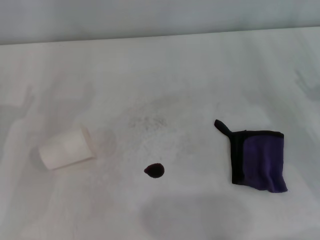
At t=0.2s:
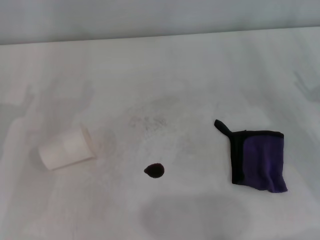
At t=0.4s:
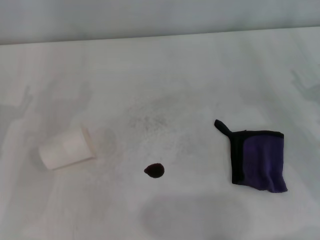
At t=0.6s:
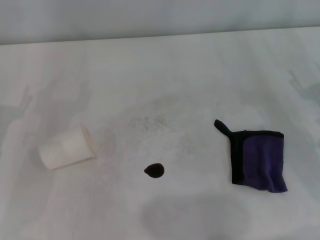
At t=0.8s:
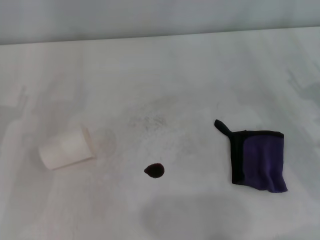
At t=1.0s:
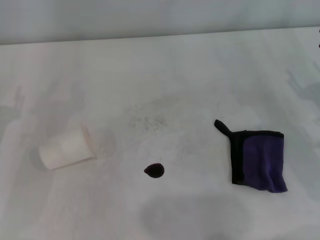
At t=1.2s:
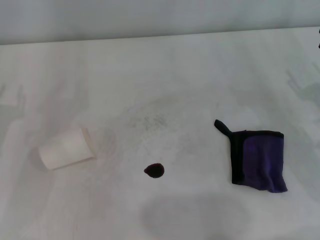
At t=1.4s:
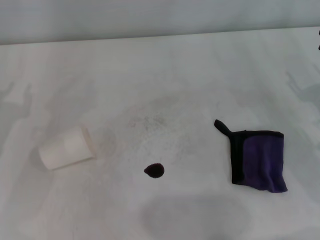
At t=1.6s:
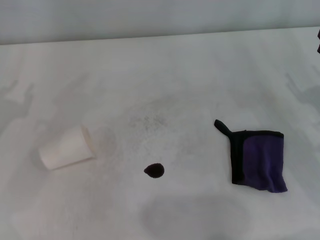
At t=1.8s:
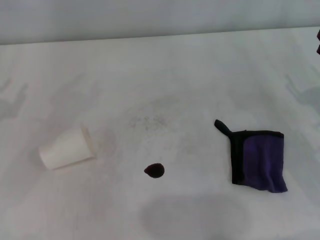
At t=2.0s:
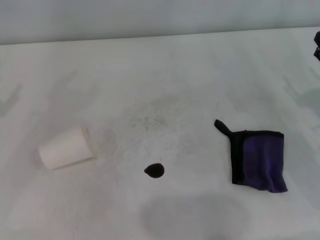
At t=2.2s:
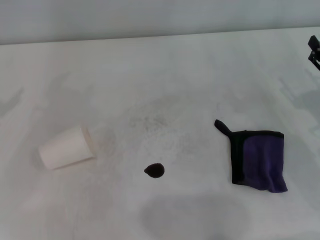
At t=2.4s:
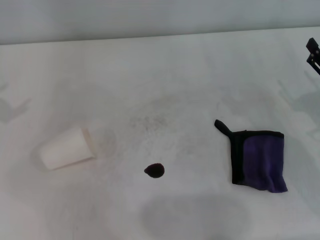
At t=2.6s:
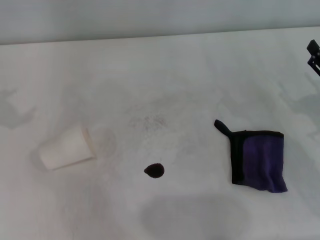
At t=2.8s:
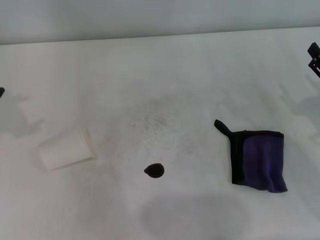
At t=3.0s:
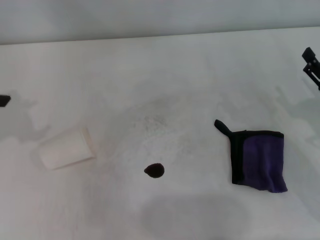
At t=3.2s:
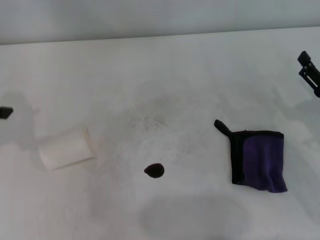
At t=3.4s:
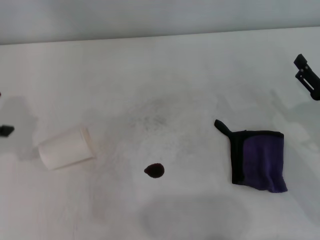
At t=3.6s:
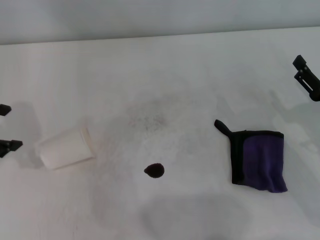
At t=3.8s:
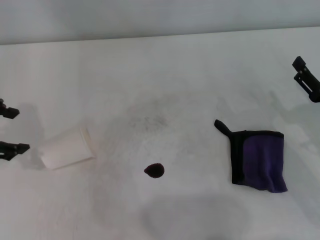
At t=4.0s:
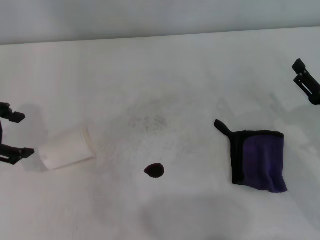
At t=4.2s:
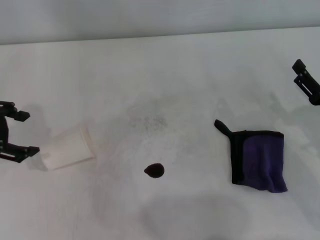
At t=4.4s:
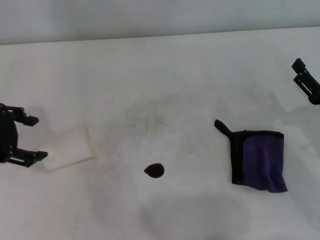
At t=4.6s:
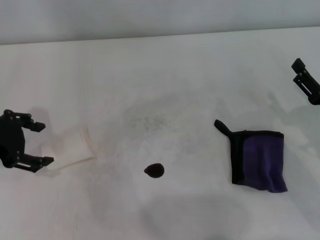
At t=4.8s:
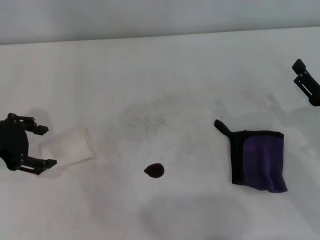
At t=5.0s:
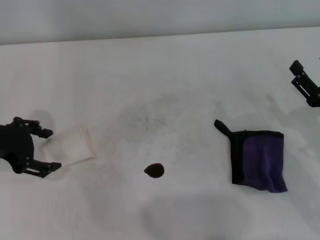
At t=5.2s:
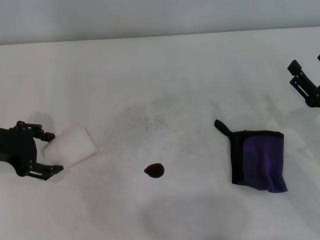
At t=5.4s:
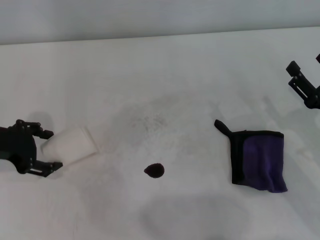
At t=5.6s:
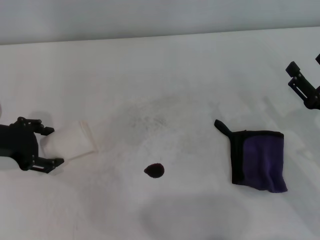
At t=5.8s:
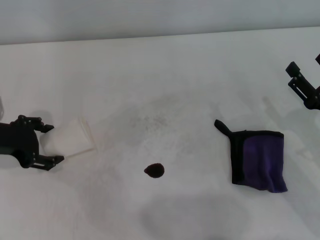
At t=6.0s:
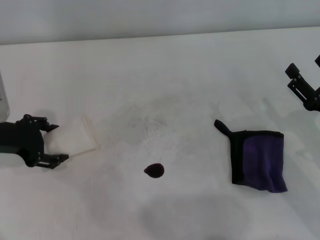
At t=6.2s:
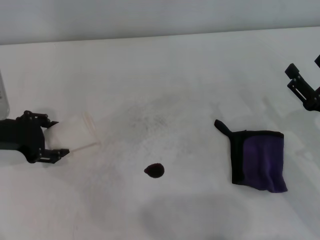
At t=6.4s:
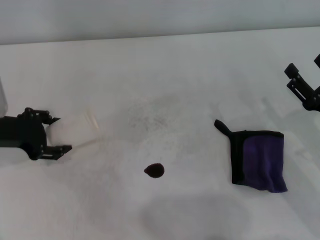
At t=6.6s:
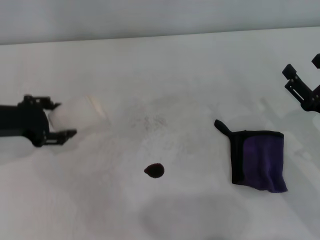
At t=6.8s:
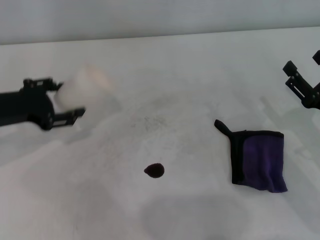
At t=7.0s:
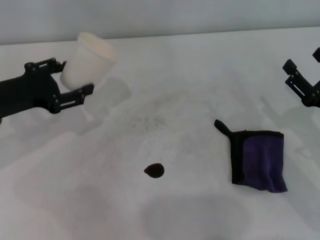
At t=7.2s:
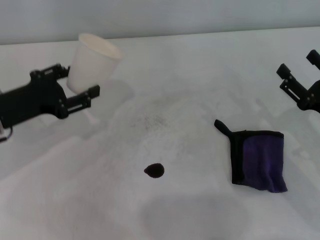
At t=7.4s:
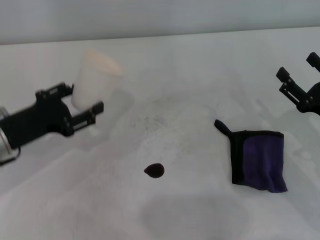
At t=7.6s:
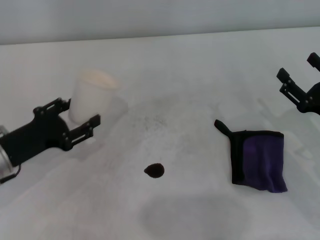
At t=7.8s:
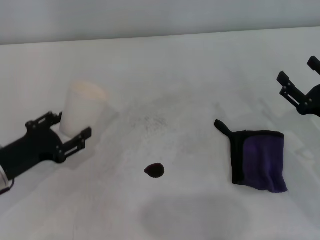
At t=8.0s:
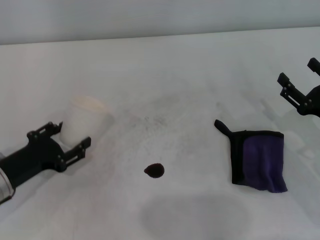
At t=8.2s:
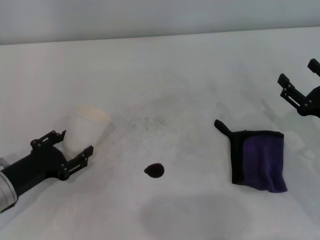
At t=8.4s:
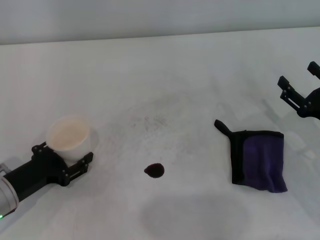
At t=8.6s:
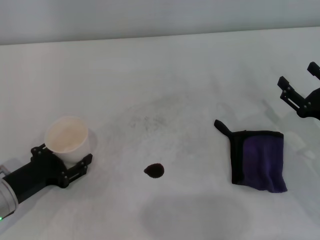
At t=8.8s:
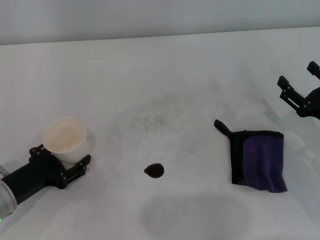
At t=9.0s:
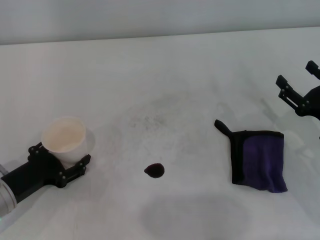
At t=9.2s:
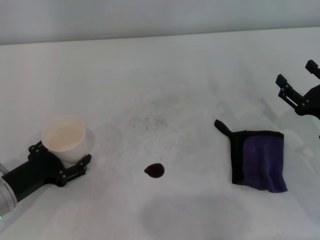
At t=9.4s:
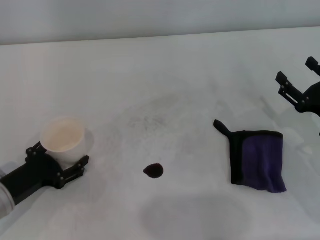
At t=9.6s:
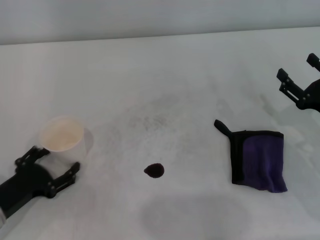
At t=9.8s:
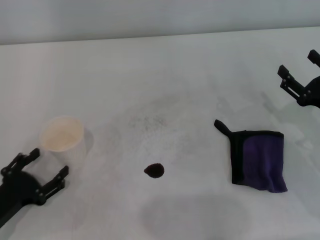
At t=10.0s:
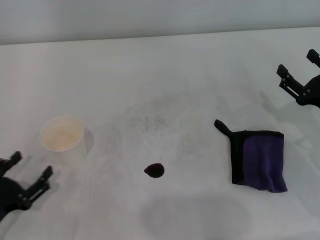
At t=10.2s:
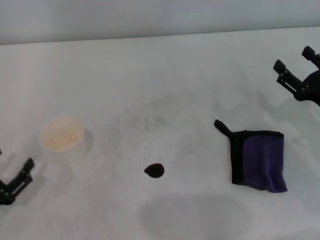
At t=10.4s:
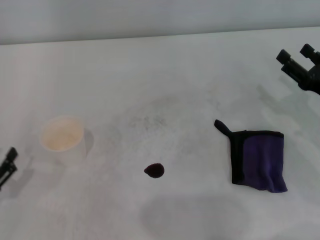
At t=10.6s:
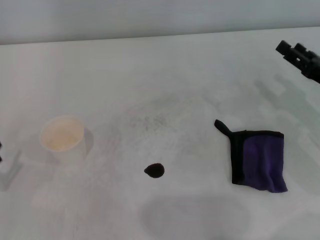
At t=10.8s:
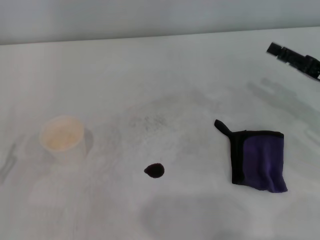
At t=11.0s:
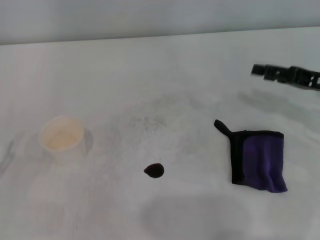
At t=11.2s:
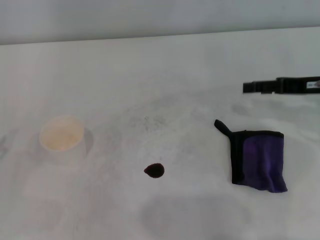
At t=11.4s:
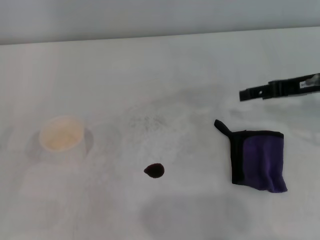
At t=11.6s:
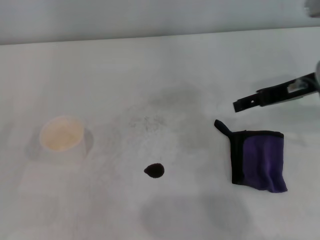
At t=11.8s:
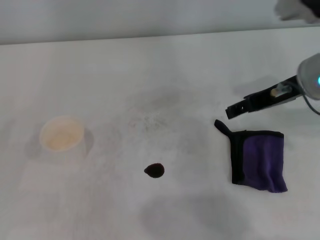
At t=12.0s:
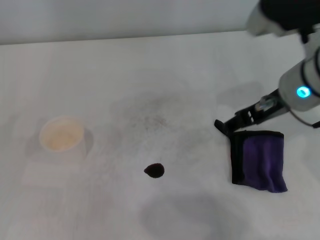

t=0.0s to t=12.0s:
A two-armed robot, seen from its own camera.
Step, t=0.0s to t=6.0s: Grasp the paper cup with the left gripper.
Step, t=6.2s to t=9.2s: Stand the paper cup upright with the left gripper.
t=3.0s to t=4.4s: The left gripper travels downward by roughly 10 cm.
t=4.4s to t=6.0s: The left gripper moves downward, about 5 cm.
t=6.0s to t=7.6s: The left gripper goes about 5 cm downward and backward.
t=7.6s to t=9.0s: The left gripper travels downward by roughly 5 cm.
t=9.0s to t=10.4s: The left gripper travels backward and to the left by roughly 10 cm.
t=10.4s to t=12.0s: The left gripper changes place by about 10 cm. Meanwhile the right gripper goes some 20 cm to the left and upward.

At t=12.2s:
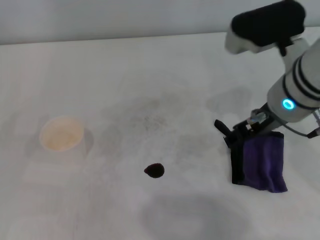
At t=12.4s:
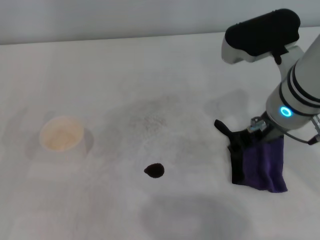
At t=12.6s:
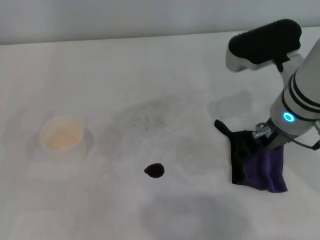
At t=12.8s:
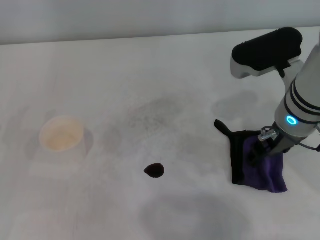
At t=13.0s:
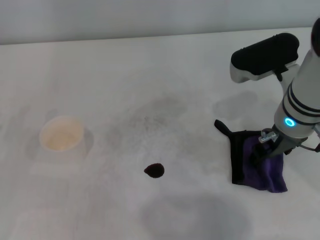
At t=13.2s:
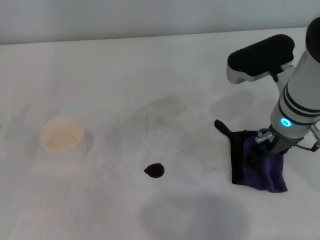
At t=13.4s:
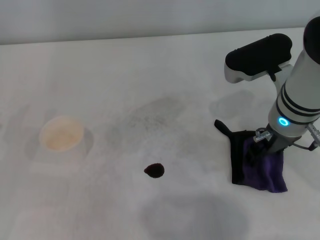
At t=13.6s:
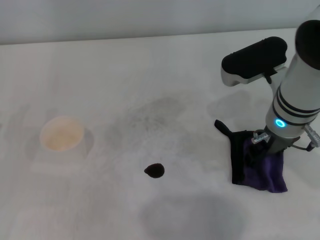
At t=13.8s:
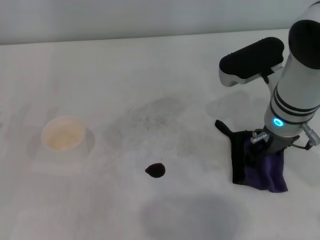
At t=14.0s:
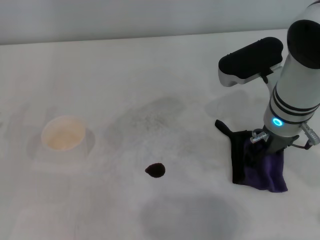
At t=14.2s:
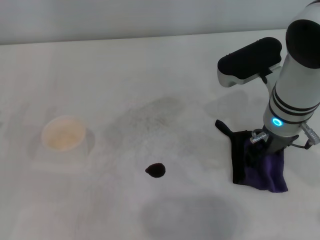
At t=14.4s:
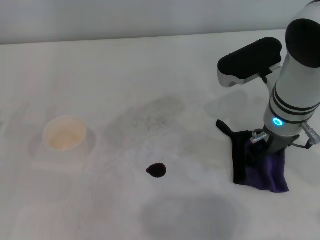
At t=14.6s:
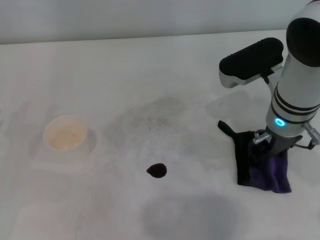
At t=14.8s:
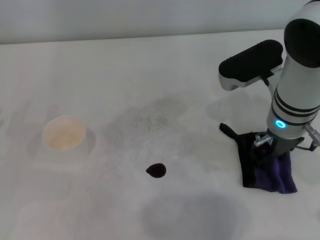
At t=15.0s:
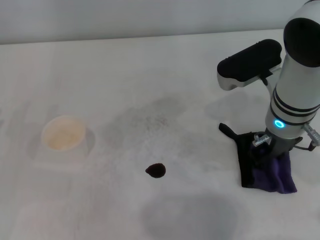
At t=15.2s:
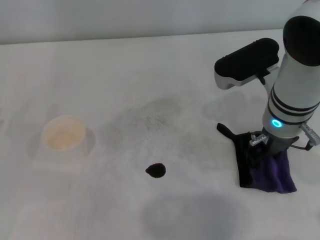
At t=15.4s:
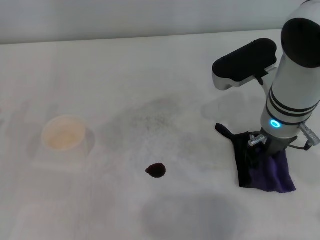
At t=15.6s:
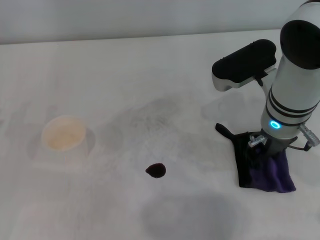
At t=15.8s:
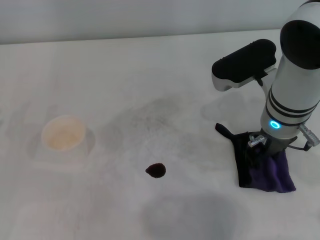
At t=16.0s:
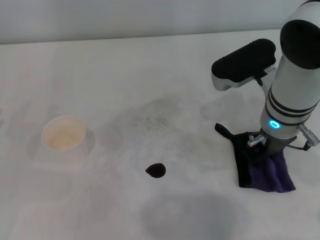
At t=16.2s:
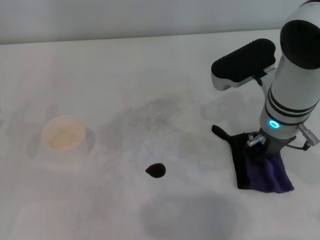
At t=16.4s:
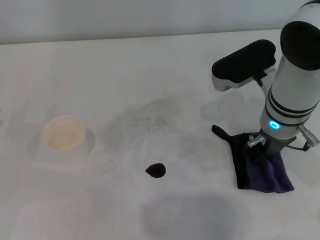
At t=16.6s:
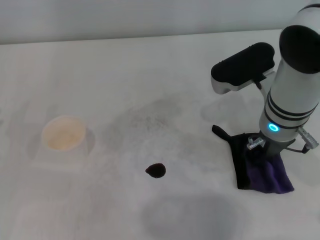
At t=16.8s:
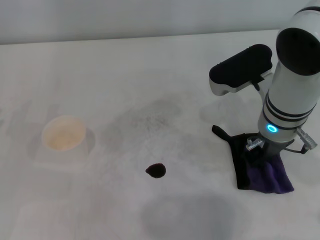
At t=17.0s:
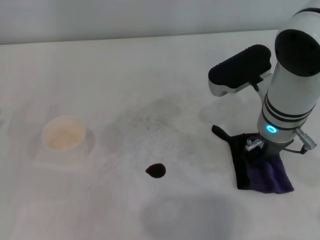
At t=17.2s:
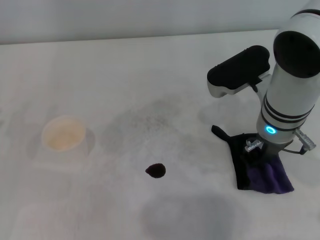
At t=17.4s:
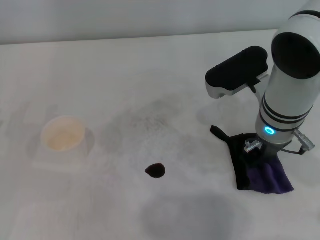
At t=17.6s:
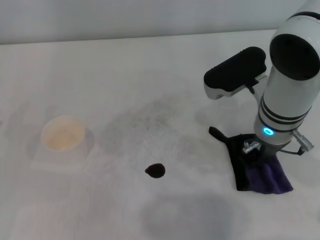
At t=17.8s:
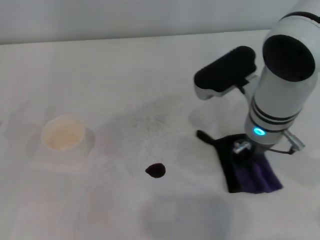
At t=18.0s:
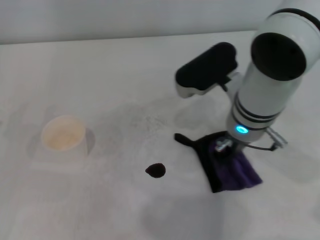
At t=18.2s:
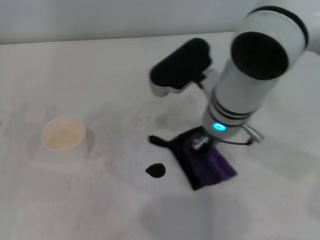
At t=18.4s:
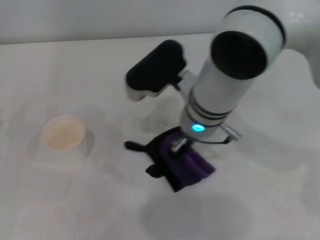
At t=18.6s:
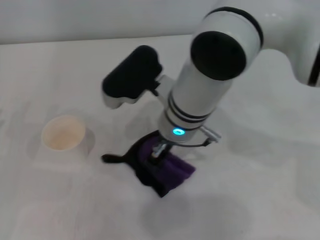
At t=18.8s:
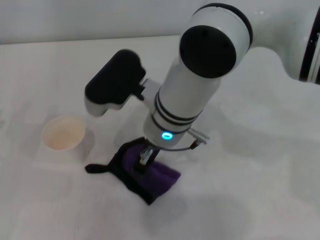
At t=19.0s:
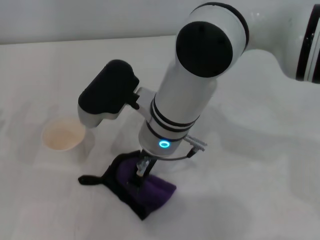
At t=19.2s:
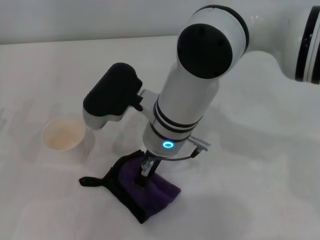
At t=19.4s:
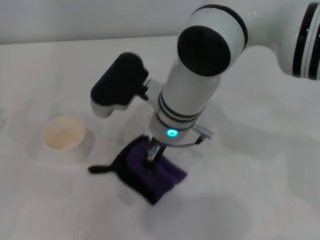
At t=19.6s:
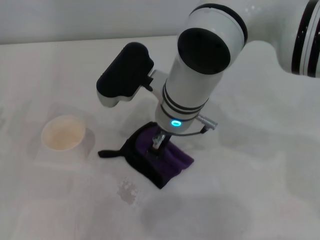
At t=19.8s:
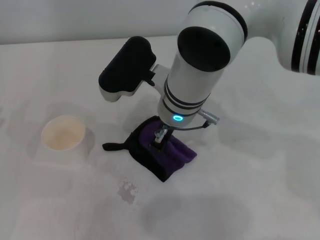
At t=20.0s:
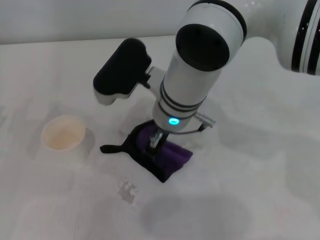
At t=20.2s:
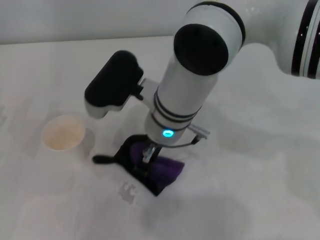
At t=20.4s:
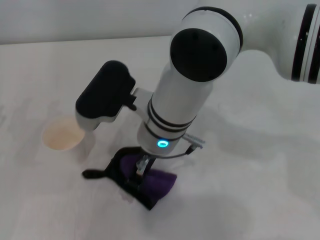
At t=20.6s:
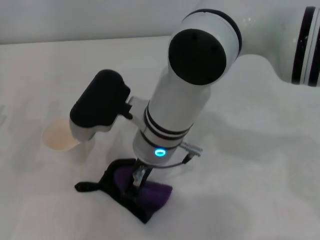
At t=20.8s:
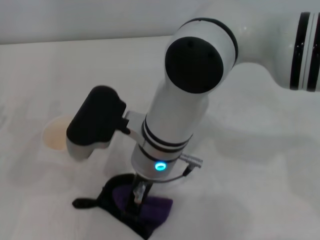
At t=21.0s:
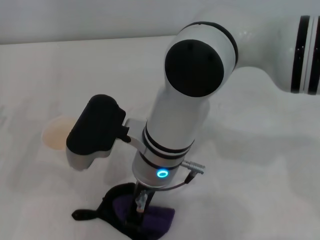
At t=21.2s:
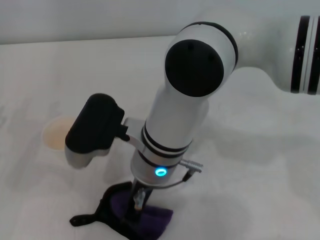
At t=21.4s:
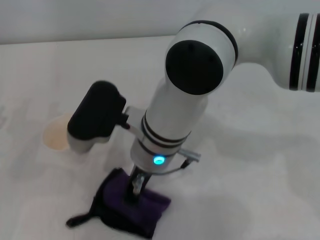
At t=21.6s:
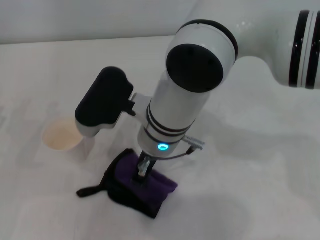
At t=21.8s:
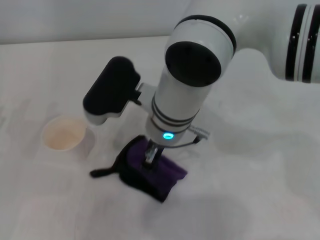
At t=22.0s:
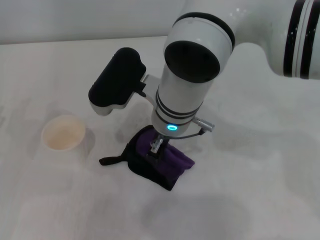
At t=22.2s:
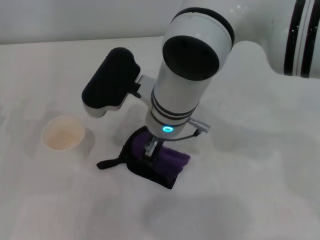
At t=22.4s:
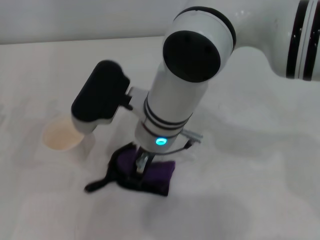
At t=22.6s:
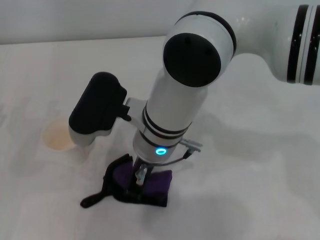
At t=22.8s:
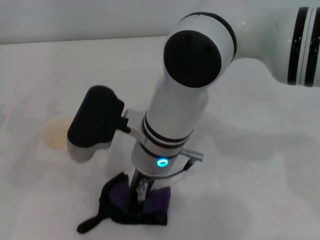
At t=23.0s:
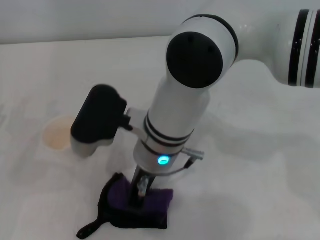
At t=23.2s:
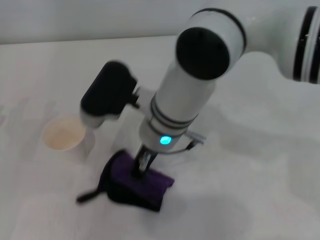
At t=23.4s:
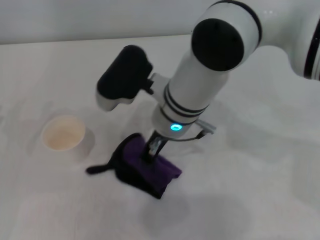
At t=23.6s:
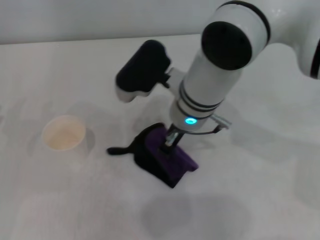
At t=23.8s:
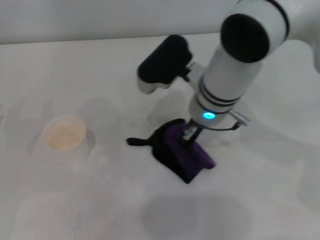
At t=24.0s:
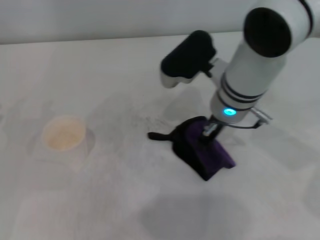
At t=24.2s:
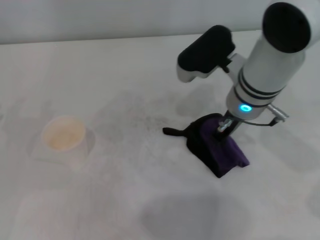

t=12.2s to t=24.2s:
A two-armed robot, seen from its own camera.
Step, t=12.2s to t=15.0s: Grasp the rag with the right gripper.
t=12.2s to t=13.8s: The right gripper shifts some 5 cm downward.
t=13.8s to t=15.2s: Neither gripper changes place.
t=15.2s to t=16.6s: The right gripper closes.
t=16.6s to t=18.2s: The right gripper is displaced to the left by about 5 cm.
t=18.2s to t=19.8s: The right gripper heads to the left, covering roughly 5 cm.
t=19.8s to t=21.2s: The right gripper heads backward, covering about 5 cm.
t=22.6s to t=24.2s: The right gripper is displaced to the right by some 15 cm.
